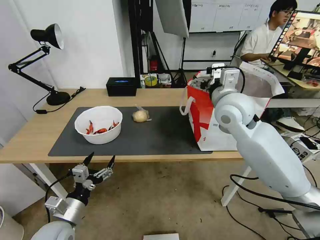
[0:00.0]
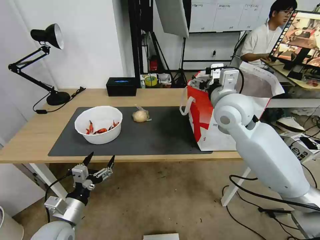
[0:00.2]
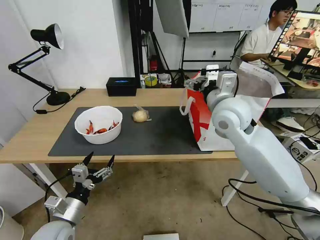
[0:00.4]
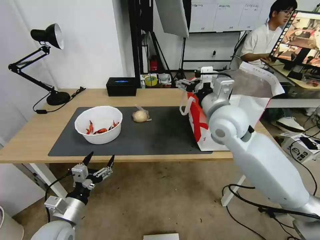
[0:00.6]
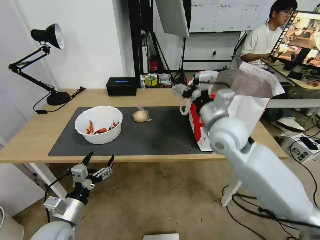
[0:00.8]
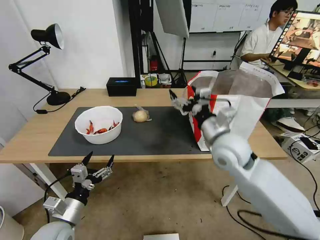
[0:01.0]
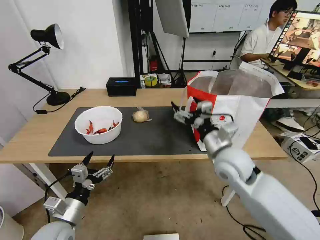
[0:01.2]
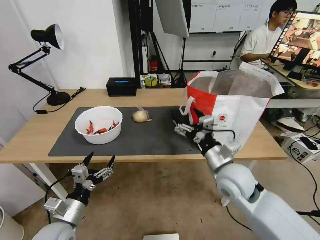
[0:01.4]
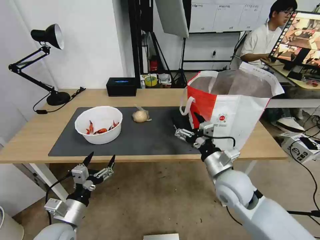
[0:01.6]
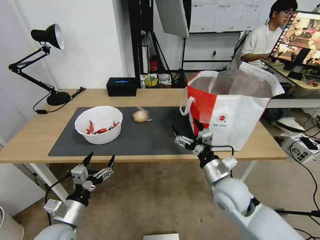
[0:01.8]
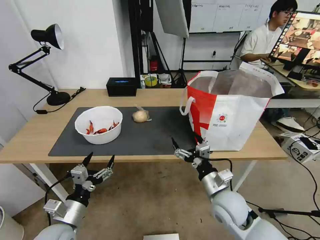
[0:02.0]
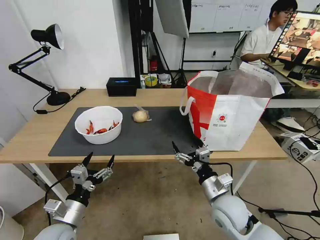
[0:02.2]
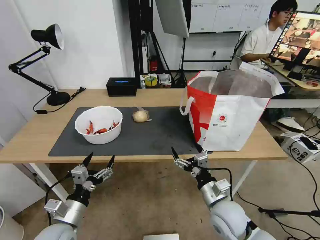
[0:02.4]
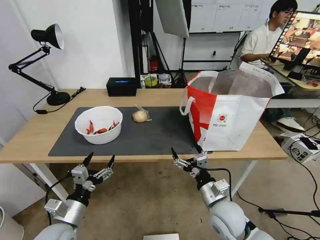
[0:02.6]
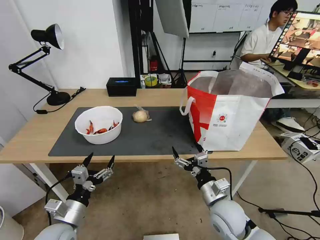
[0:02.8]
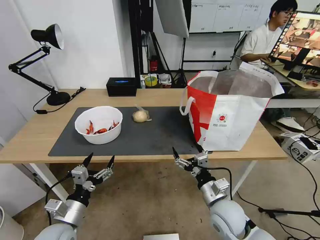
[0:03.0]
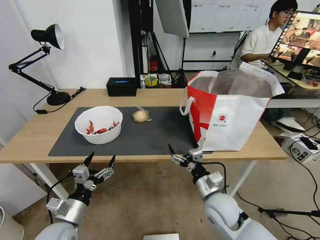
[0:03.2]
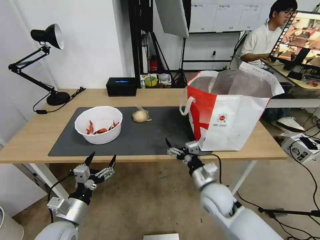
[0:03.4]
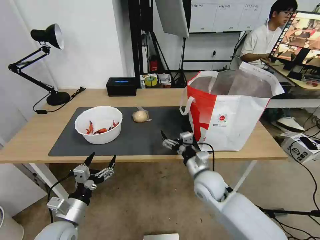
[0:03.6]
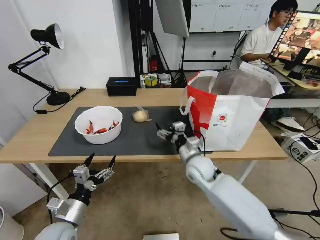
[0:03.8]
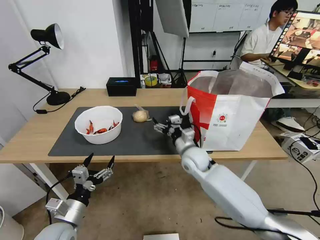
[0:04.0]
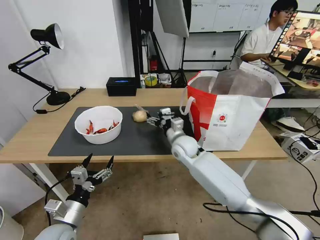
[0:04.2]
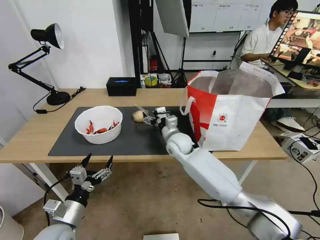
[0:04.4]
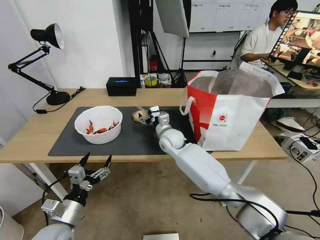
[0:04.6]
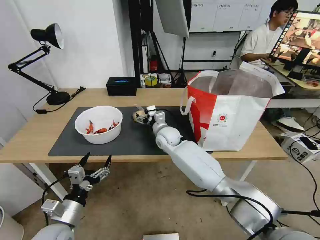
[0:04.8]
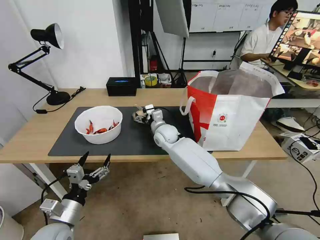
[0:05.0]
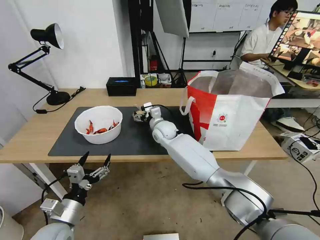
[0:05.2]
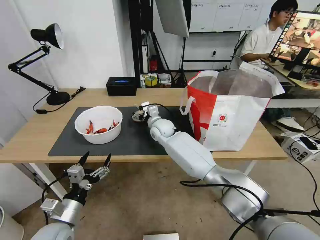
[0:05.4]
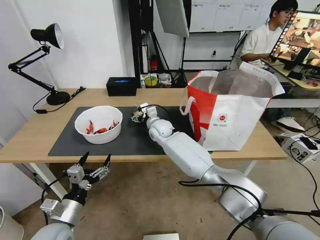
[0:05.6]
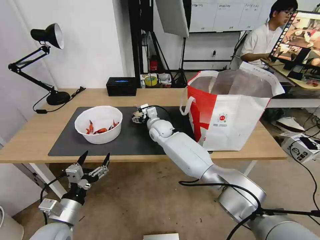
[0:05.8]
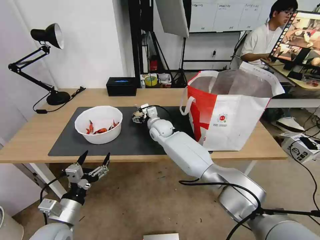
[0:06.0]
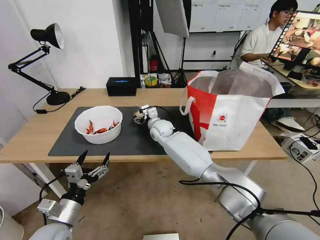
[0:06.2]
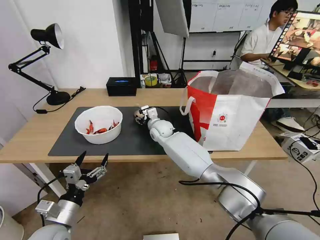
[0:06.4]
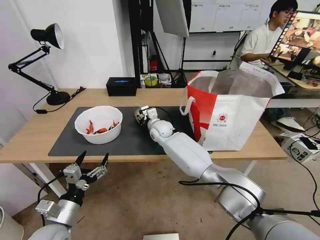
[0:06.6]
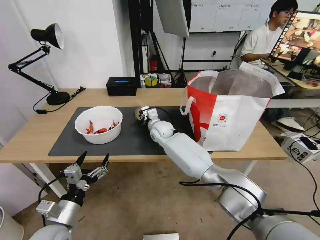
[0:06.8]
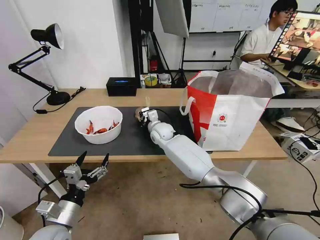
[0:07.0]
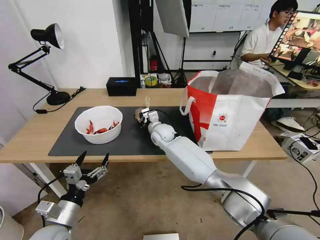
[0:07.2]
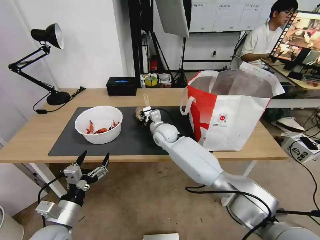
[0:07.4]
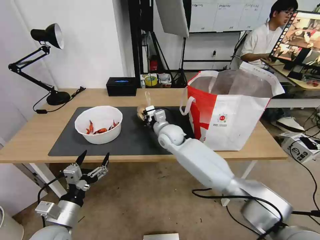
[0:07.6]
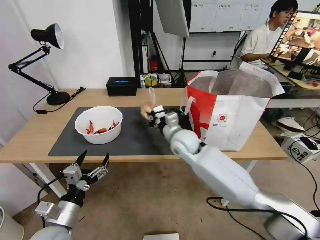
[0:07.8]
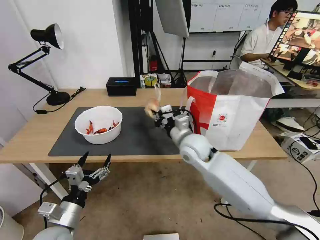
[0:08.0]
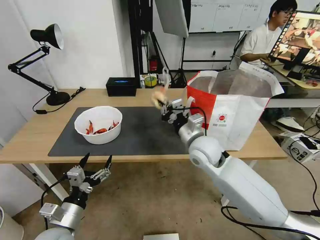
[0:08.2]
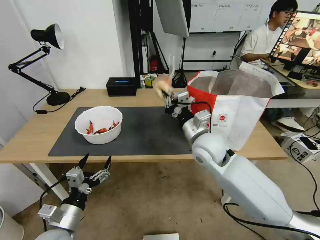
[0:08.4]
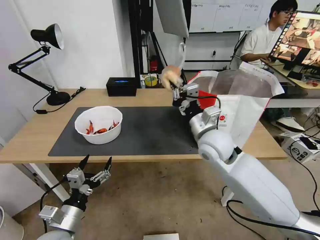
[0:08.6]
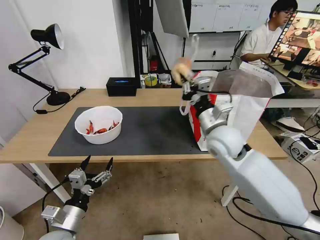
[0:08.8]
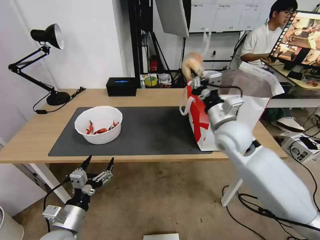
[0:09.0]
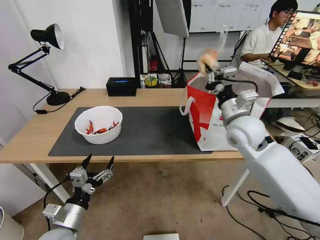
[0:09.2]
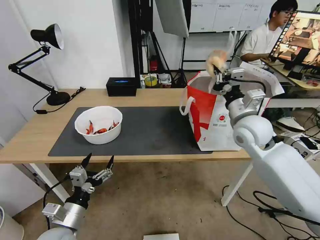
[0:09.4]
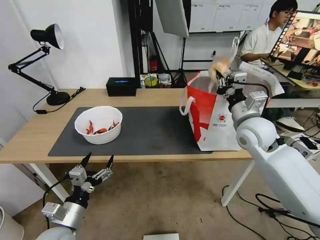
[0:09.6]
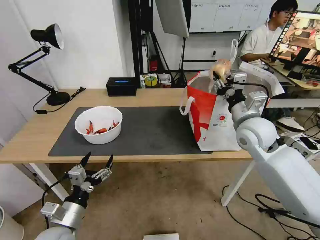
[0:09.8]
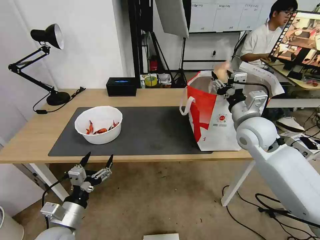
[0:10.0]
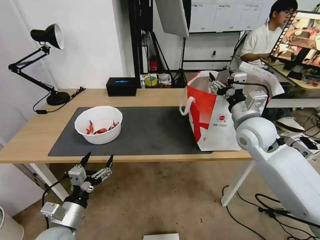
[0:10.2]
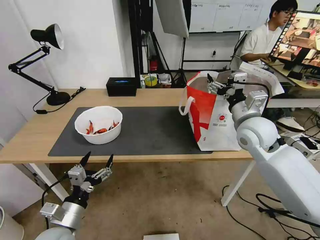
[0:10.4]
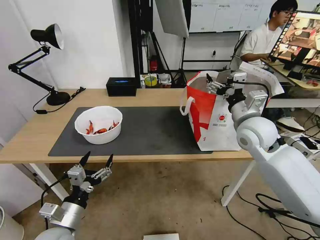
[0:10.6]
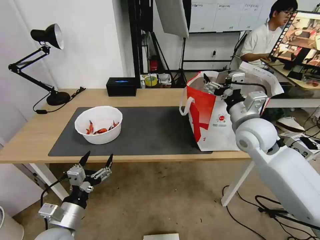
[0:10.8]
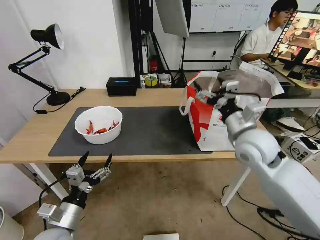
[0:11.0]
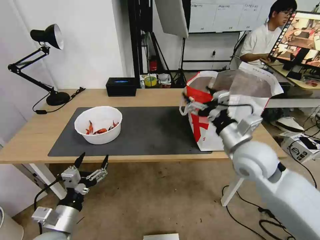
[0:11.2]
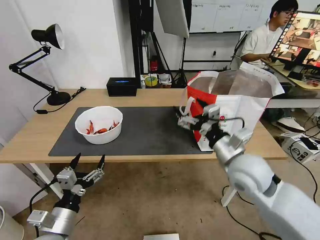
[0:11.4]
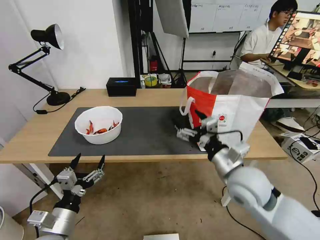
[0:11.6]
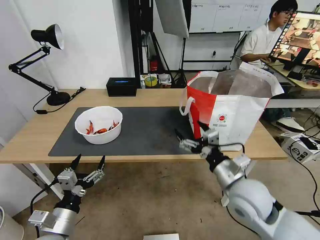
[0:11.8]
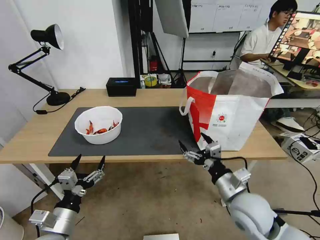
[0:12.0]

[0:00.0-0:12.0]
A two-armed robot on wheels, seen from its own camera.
Task of the whole recording: Pick up the trash from the table and place it into the takeout bag.
0:00.0 to 0:01.6: The right gripper travels downward and backward by some 20 cm.
0:01.6 to 0:03.0: The right gripper heads downward and backward, covering some 10 cm.
0:03.0 to 0:04.4: The right gripper travels forward and to the left by about 25 cm.
0:04.4 to 0:06.0: The right gripper goes some 10 cm forward and to the left.
0:06.0 to 0:07.6: The right gripper shifts roughly 5 cm backward, and closes its fingers.
0:07.6 to 0:09.0: The right gripper travels to the right, upward and backward by about 20 cm.
0:09.0 to 0:10.4: The right gripper moves to the right, about 5 cm, and opens.
0:10.4 to 0:12.0: The right gripper shifts approximately 20 cm backward and downward.

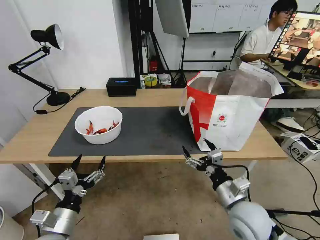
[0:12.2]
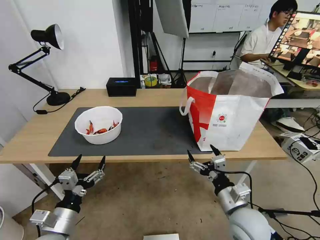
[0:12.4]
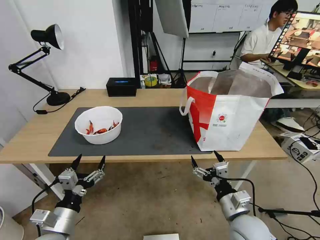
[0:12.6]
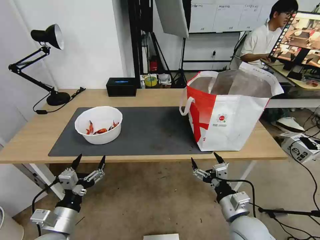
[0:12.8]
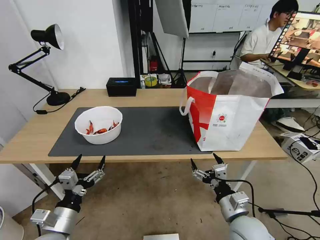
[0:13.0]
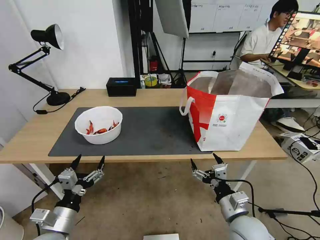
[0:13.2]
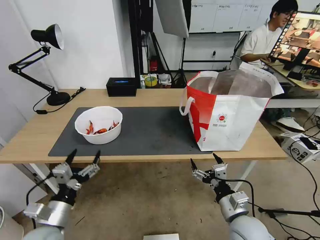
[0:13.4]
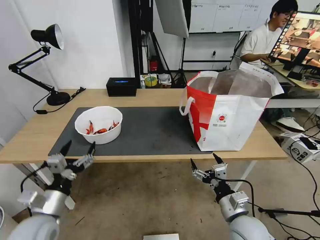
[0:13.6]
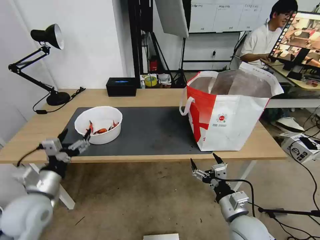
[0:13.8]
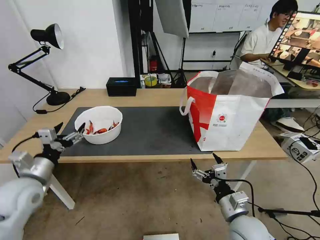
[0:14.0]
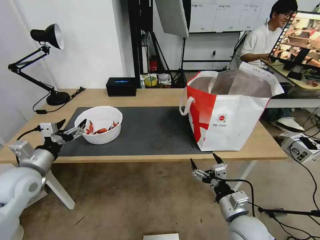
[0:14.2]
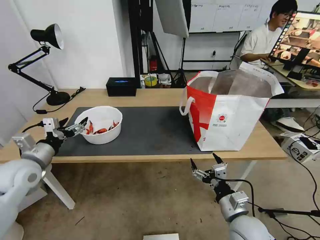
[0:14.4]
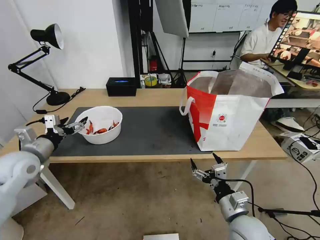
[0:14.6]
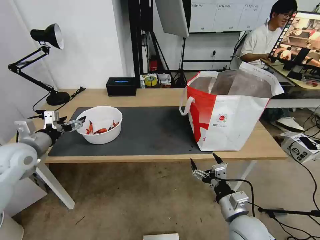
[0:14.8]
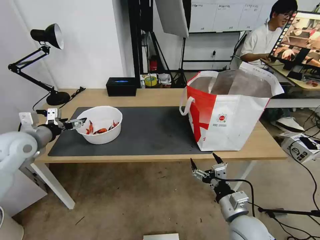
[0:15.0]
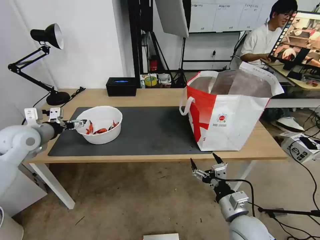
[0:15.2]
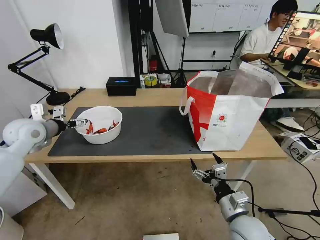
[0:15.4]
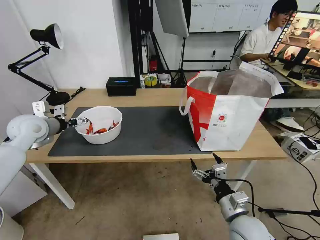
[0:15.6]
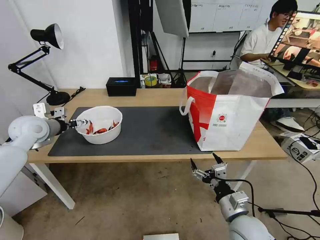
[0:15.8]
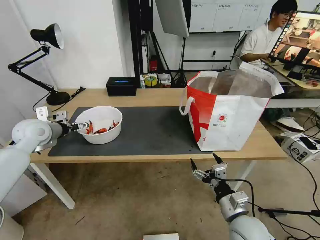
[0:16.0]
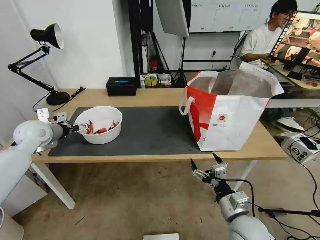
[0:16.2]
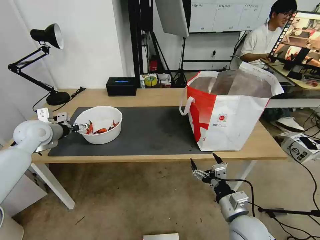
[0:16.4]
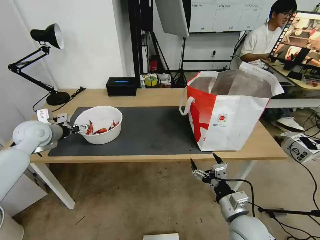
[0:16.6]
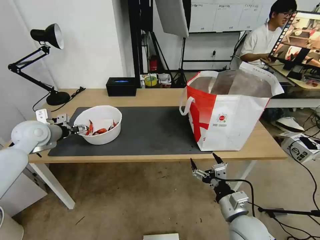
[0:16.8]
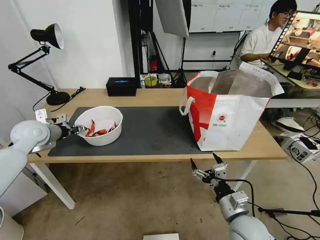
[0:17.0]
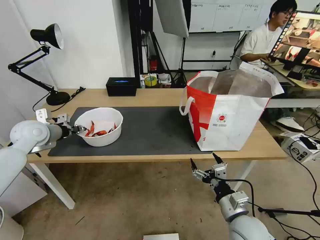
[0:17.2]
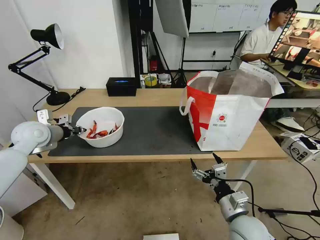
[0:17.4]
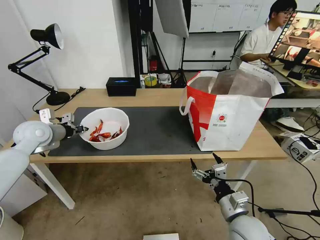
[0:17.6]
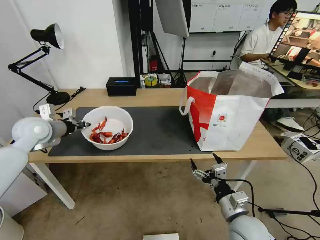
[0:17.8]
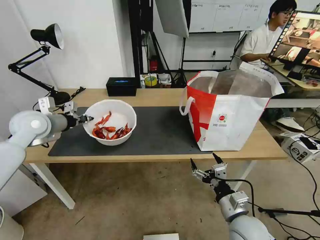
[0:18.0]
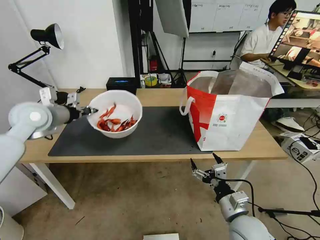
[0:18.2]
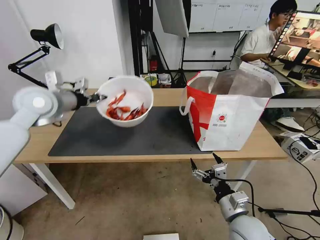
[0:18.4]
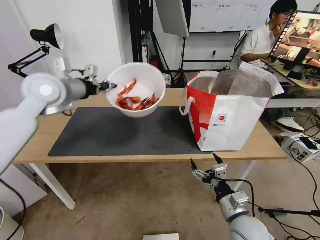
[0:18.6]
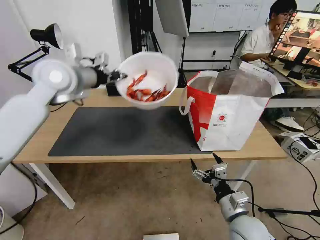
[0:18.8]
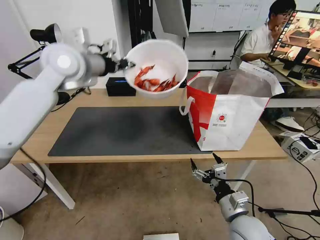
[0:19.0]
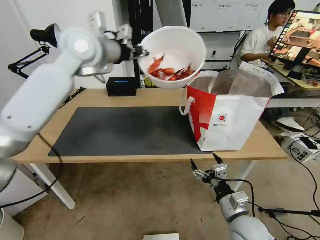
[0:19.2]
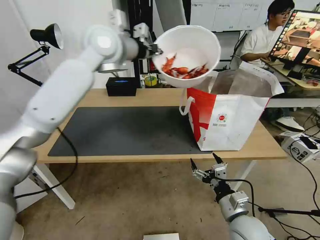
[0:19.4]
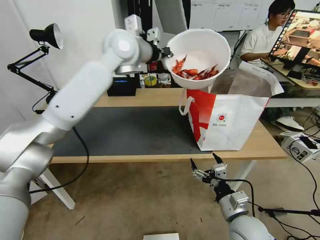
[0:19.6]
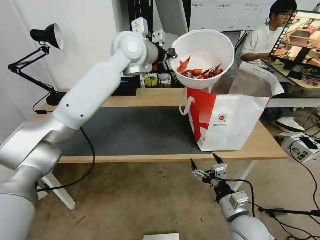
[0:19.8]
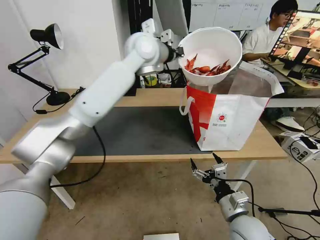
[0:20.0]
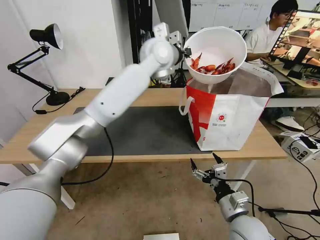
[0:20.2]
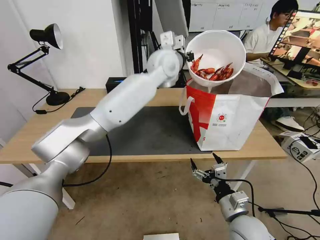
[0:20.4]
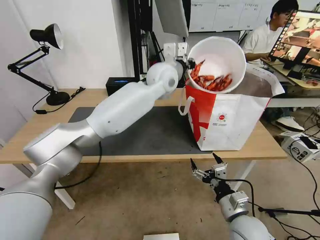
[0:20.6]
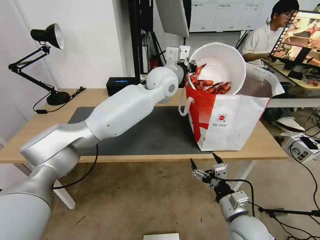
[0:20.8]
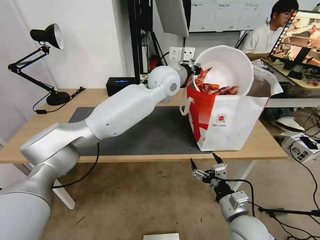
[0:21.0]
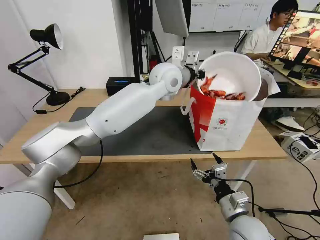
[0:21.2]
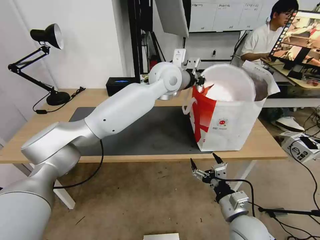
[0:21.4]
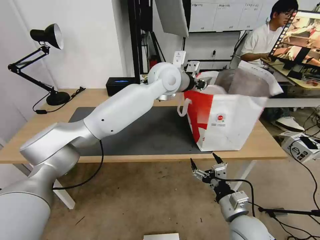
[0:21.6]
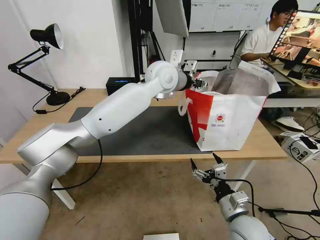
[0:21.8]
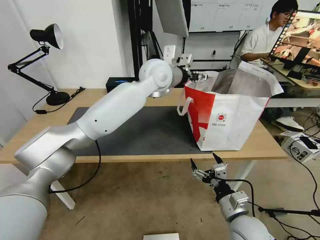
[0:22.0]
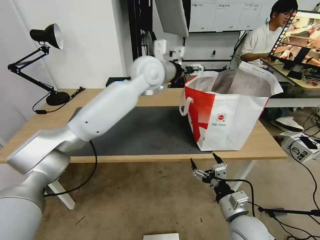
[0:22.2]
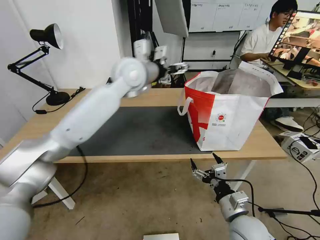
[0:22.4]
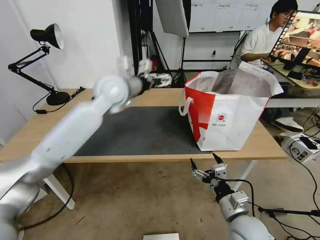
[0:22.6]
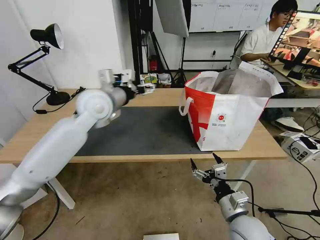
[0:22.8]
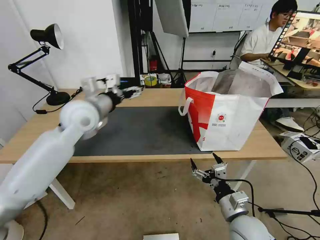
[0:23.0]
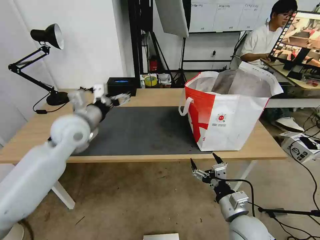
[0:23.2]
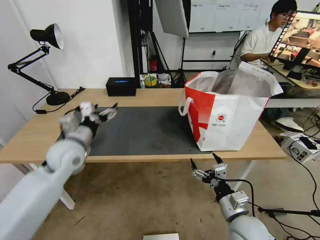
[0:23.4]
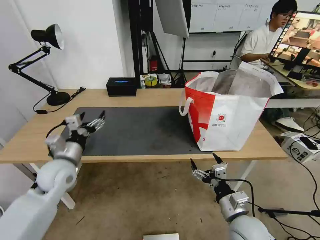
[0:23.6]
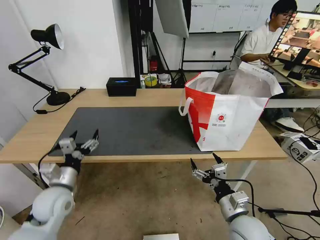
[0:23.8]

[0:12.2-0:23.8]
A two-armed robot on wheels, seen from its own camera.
Task of the whole recording: Pick up the trash from the table and place it into the takeout bag.
0:12.2 to 0:13.6: The right gripper is displaced downward by roughly 5 cm; the left gripper changes place by roughly 5 cm.
0:13.6 to 0:15.0: The left gripper is displaced forward, upward and to the left by approximately 25 cm.
0:15.0 to 0:16.6: The left gripper is displaced forward by some 5 cm.
0:16.6 to 0:18.0: The left gripper travels upward by some 5 cm, and closes its fingers.
0:18.0 to 0:19.4: The left gripper shifts about 30 cm to the right and upward.
0:19.4 to 0:21.0: The left gripper heads to the right and downward, covering about 20 cm.
0:21.0 to 0:22.4: The left gripper shifts roughly 10 cm to the left, and opens up.
0:22.4 to 0:23.8: The left gripper travels downward, backward and to the left by approximately 40 cm.
